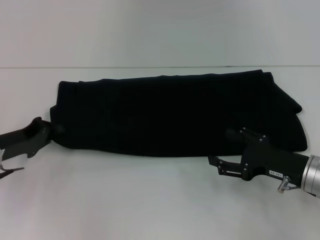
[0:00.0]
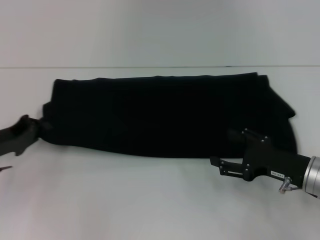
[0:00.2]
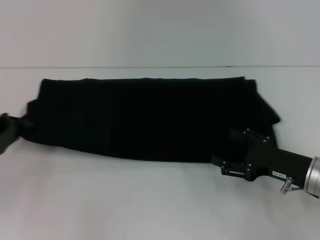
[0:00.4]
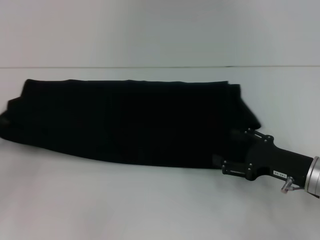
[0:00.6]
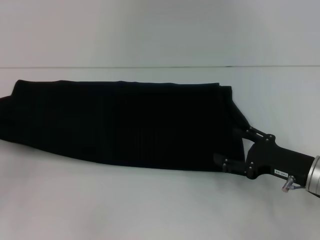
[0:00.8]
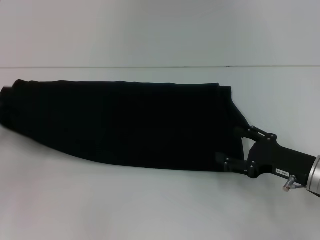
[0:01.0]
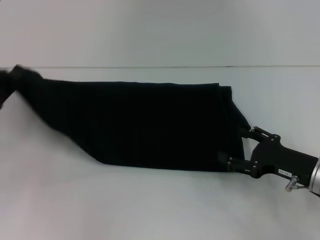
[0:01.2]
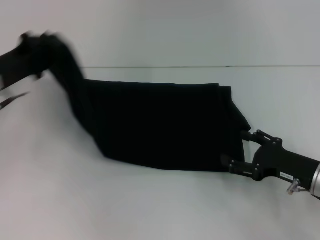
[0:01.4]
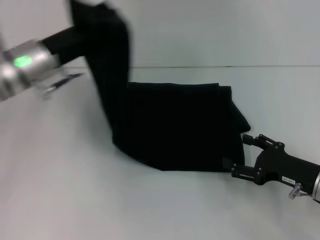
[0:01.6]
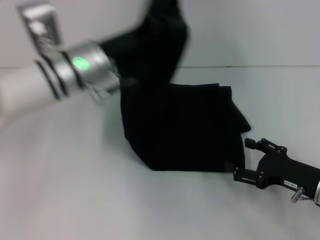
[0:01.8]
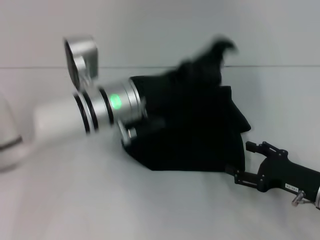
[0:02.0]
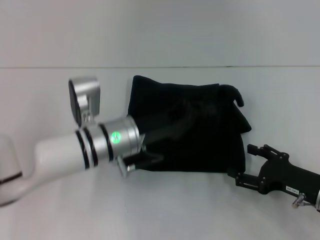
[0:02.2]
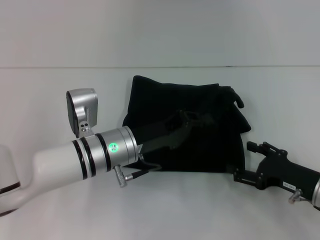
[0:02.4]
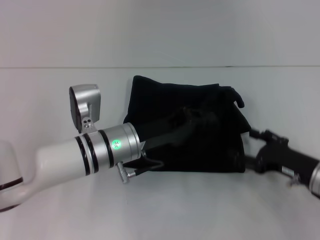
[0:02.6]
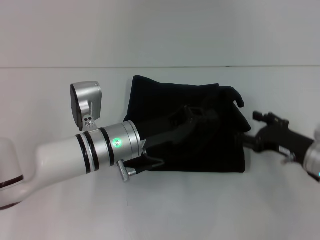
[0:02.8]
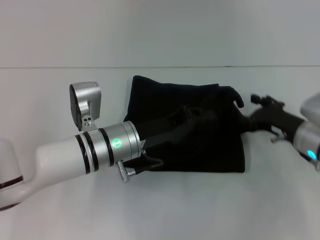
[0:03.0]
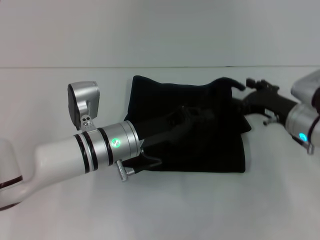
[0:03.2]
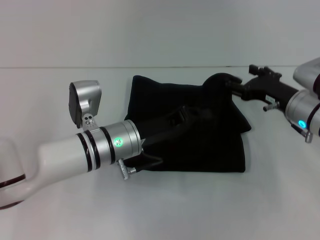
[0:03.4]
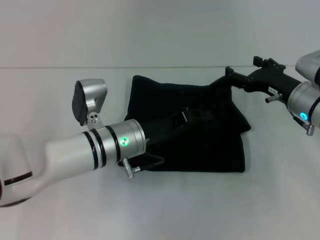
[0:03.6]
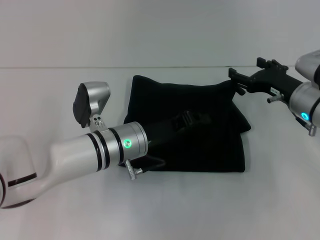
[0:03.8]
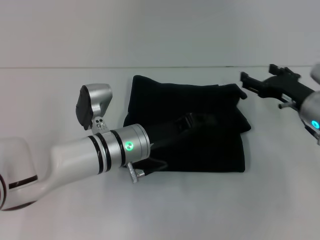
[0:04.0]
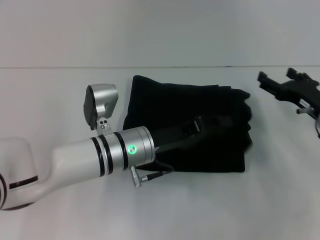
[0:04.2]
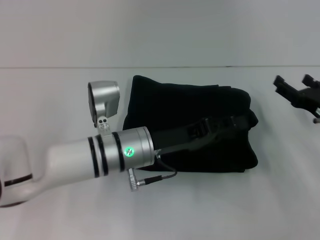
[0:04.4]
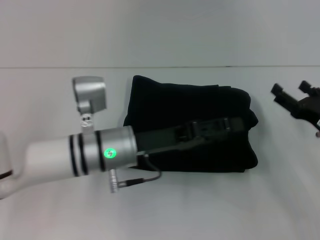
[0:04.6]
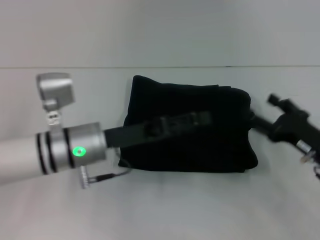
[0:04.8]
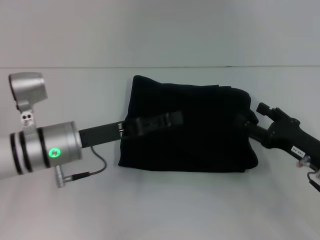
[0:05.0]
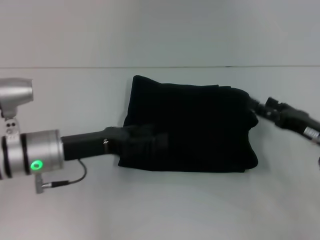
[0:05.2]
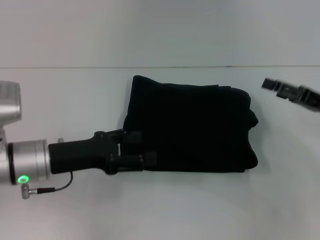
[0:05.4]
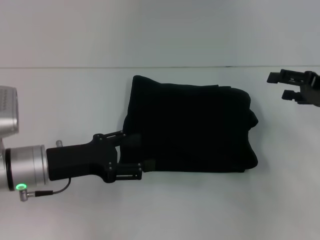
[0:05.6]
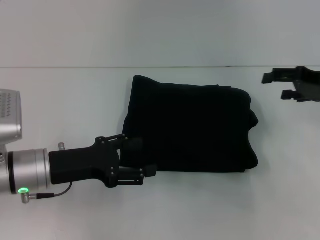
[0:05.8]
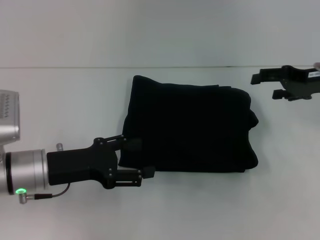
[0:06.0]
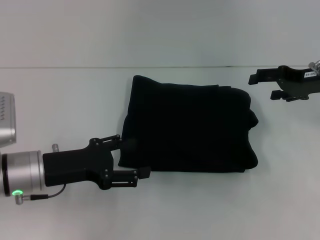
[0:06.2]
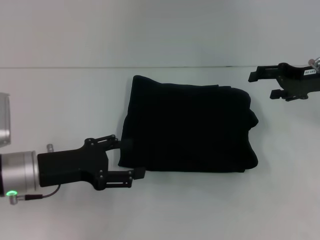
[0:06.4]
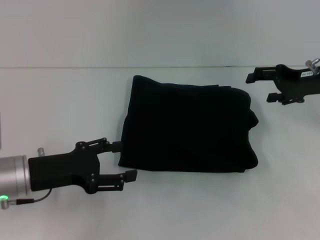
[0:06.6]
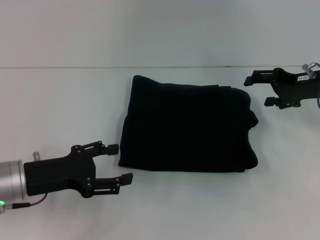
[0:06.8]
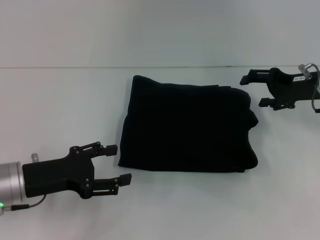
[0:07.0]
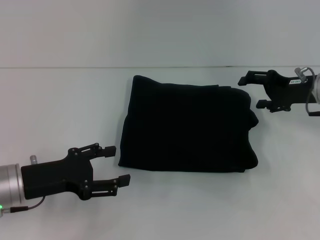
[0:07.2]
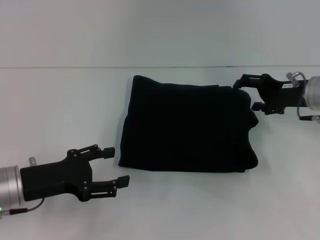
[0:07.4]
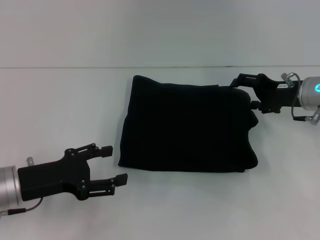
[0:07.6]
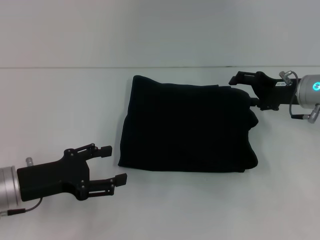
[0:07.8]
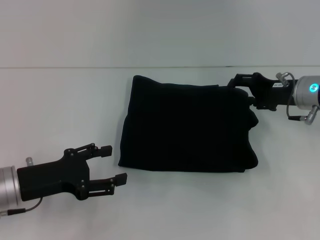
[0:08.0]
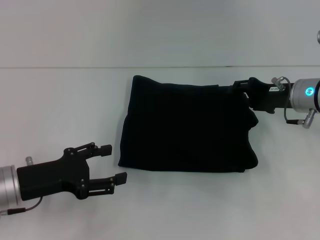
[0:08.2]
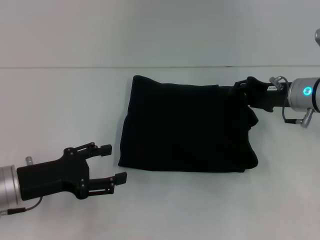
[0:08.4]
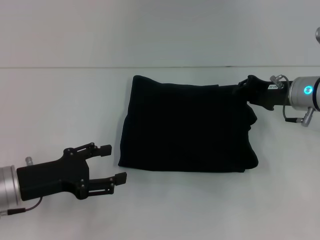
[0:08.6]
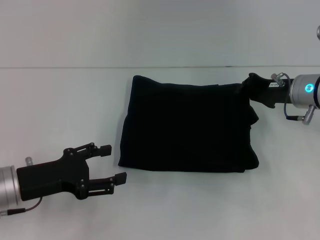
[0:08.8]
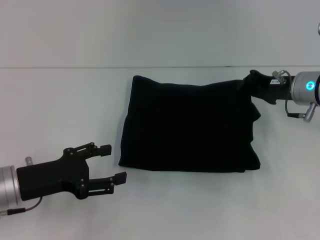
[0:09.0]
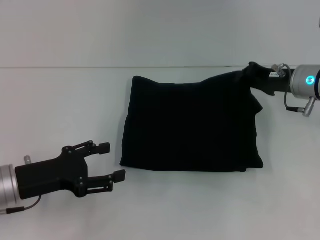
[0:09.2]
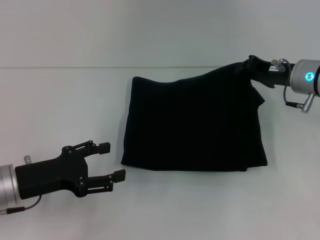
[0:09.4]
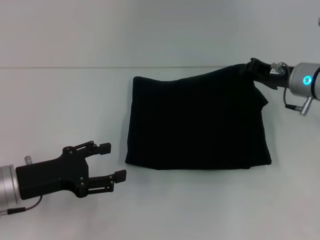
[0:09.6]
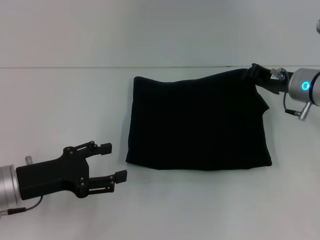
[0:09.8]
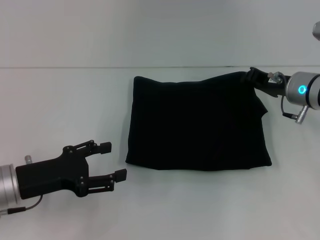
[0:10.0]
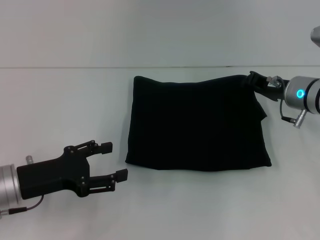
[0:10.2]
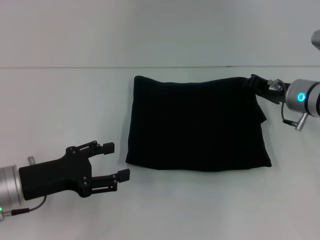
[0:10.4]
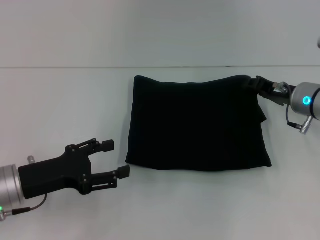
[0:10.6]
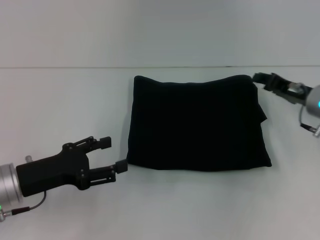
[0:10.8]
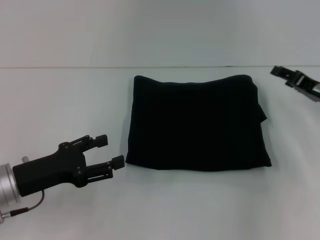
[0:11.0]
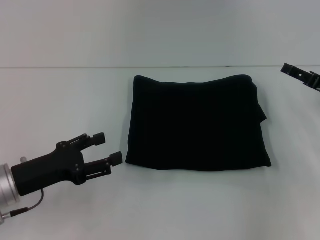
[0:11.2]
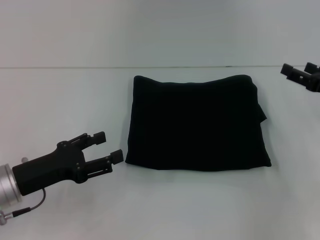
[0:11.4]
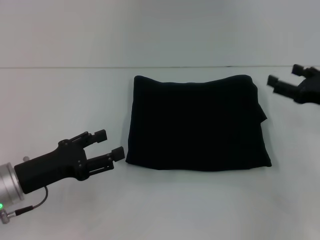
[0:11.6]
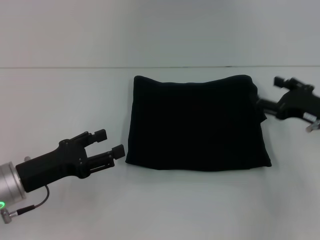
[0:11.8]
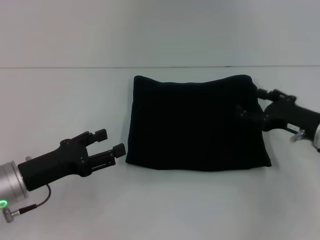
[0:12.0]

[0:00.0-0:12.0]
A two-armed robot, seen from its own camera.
Step, 0:00.0 to 0:04.4: Fold the clothes with your left hand.
0:00.0 to 0:01.6: The left gripper moves upward, to the right and forward, approximately 15 cm.
0:01.6 to 0:03.0: The left gripper travels to the right, downward and backward by roughly 15 cm; the right gripper heads forward, covering roughly 5 cm.
0:03.0 to 0:04.4: The left gripper opens up; the right gripper moves to the right, some 5 cm.
0:04.4 to 0:06.0: The right gripper moves upward and forward, roughly 15 cm. The left gripper heads to the left, covering some 15 cm, and opens up.
0:06.0 to 0:07.6: The right gripper moves roughly 5 cm.
0:07.6 to 0:09.0: The right gripper closes.
0:09.0 to 0:10.4: There are only small adjustments of the grippers.
0:10.4 to 0:12.0: The right gripper goes approximately 5 cm backward, and opens.

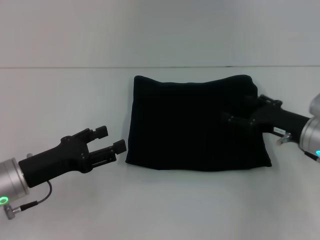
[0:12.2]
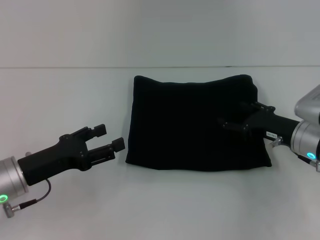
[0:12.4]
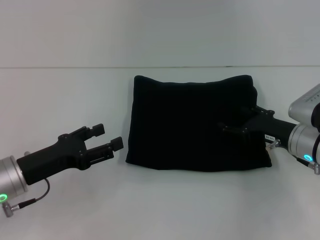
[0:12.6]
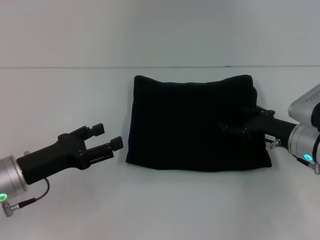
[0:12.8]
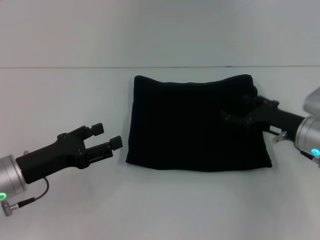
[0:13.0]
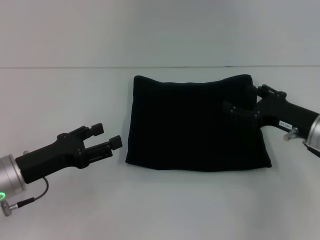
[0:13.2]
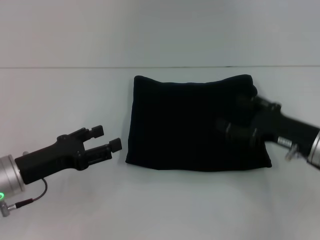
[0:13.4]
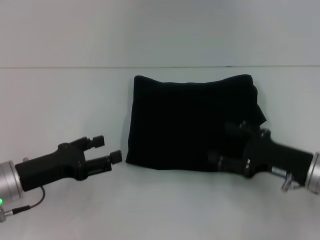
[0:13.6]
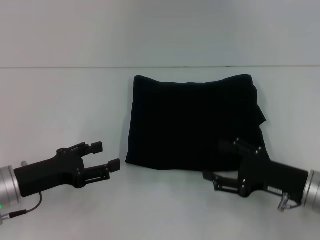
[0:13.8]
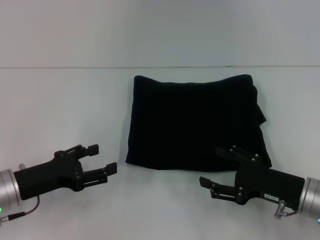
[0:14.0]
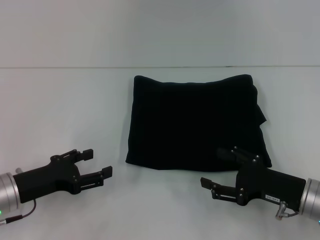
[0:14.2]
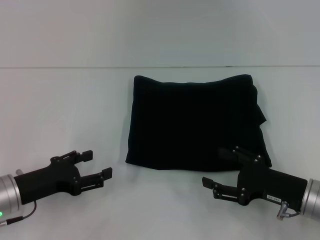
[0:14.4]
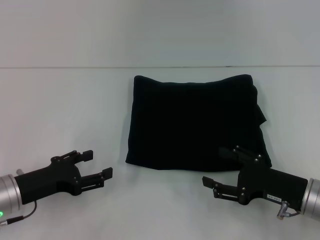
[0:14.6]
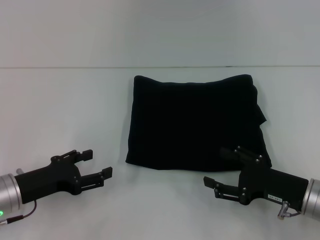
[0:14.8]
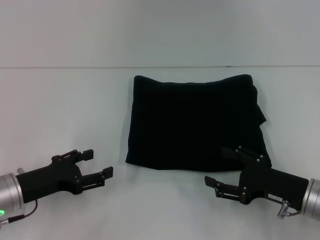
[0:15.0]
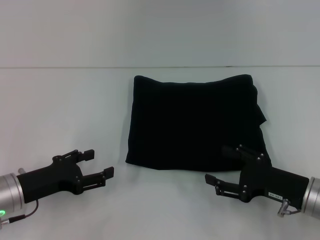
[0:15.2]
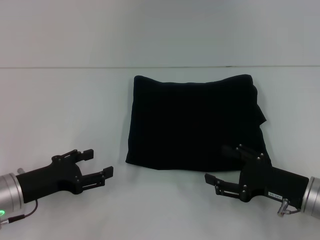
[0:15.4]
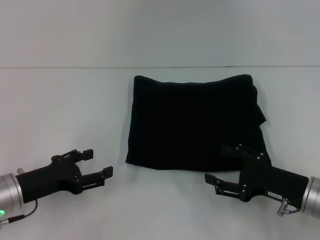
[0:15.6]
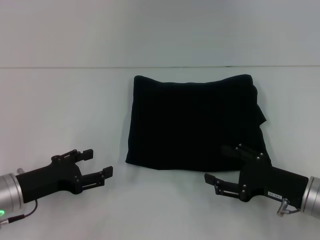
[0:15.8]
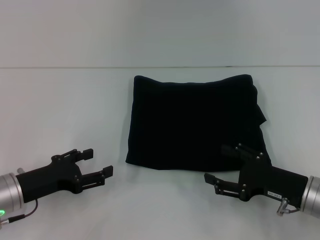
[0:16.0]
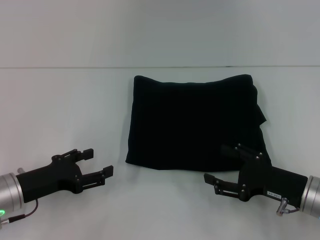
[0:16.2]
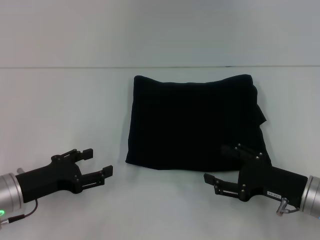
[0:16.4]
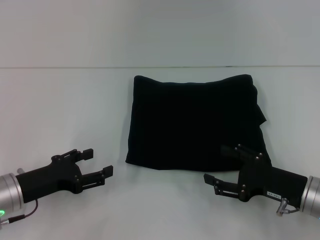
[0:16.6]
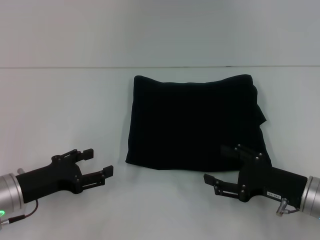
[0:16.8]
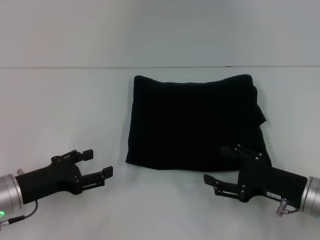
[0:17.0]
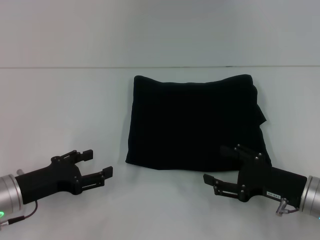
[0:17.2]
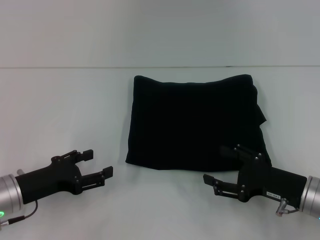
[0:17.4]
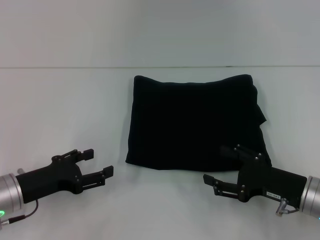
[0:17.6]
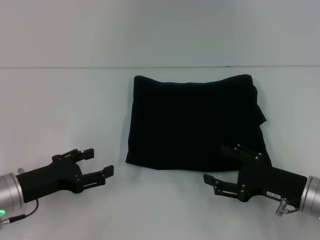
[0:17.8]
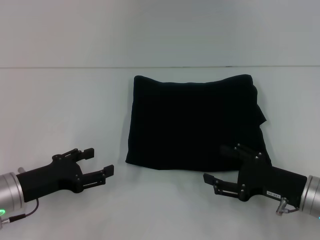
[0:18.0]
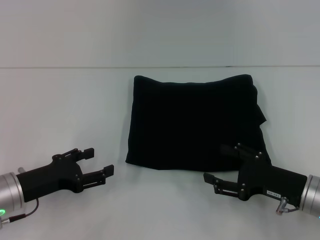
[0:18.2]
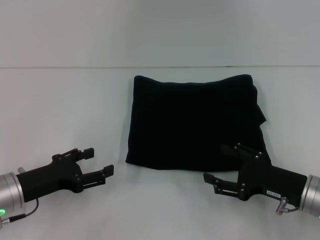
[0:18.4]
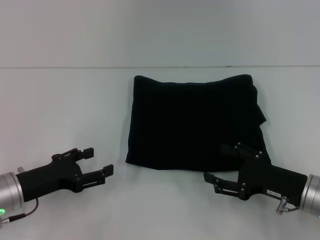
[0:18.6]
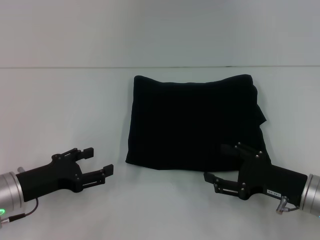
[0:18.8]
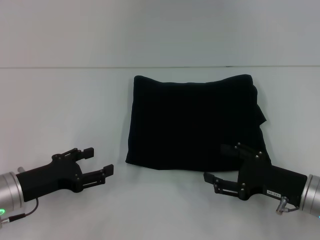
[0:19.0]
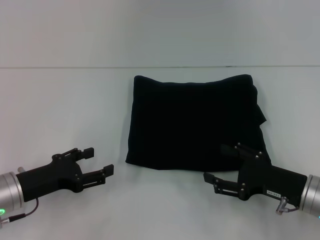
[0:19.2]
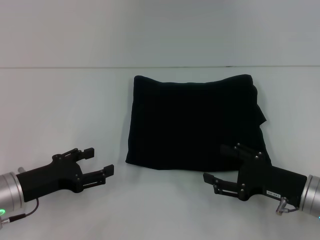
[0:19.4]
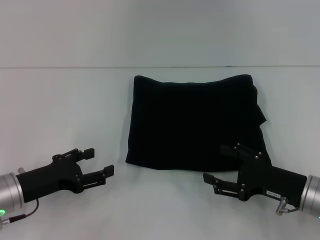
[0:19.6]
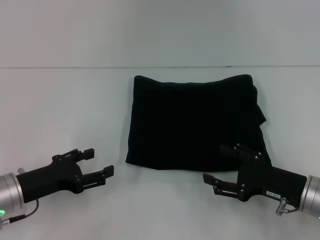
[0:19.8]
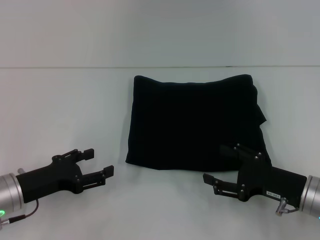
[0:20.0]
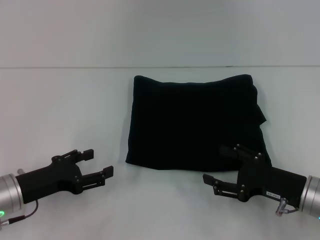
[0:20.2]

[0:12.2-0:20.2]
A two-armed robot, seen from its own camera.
0:12.2 to 0:13.8: The right gripper shifts about 10 cm backward.
0:13.8 to 0:15.4: There are only small adjustments of the grippers.
0:15.4 to 0:20.2: Both grippers stay put.

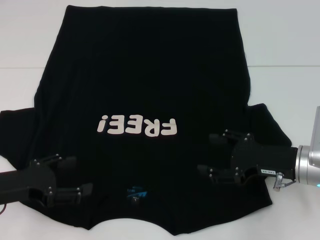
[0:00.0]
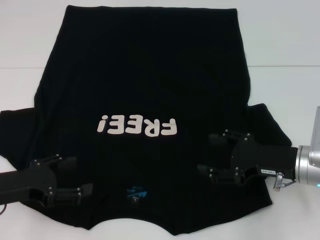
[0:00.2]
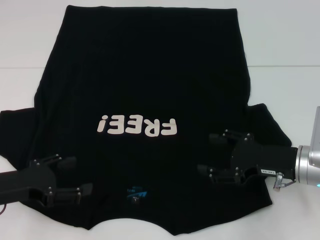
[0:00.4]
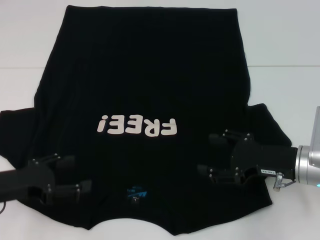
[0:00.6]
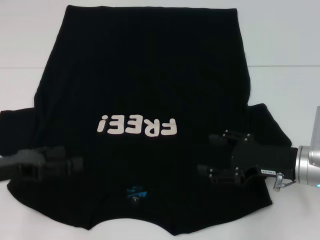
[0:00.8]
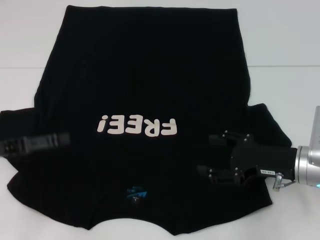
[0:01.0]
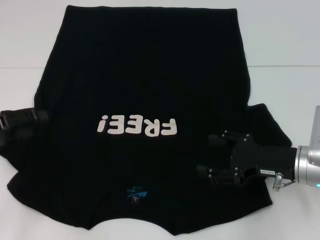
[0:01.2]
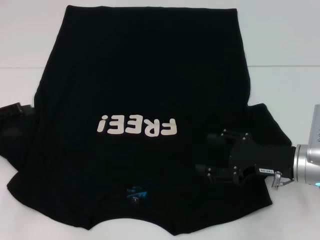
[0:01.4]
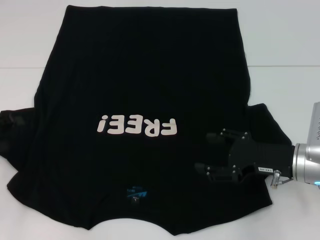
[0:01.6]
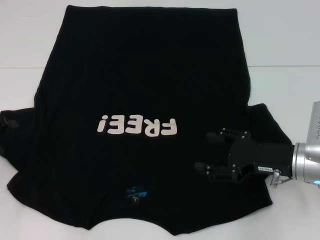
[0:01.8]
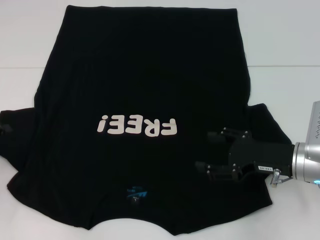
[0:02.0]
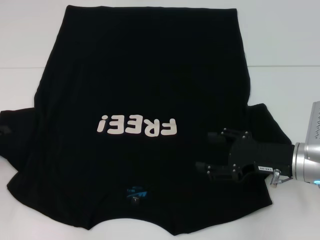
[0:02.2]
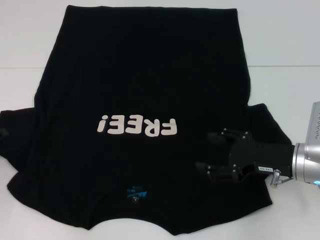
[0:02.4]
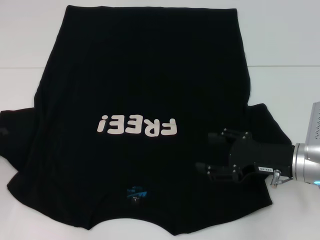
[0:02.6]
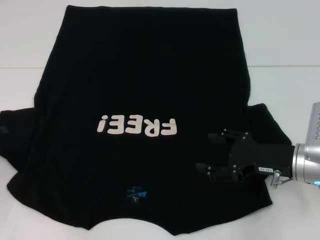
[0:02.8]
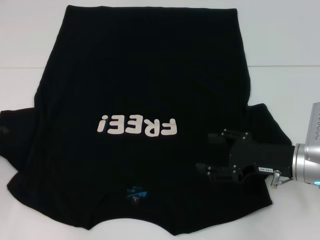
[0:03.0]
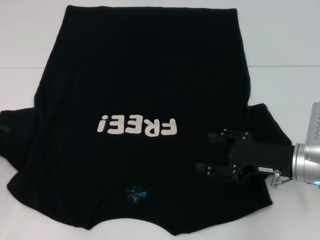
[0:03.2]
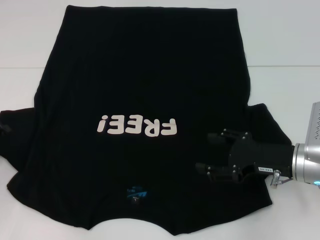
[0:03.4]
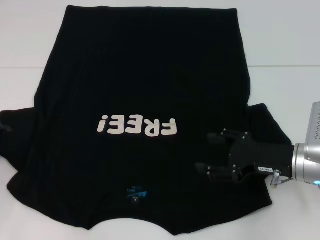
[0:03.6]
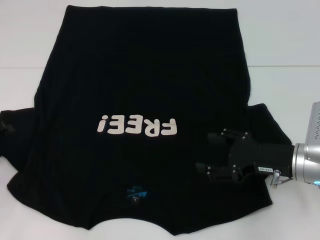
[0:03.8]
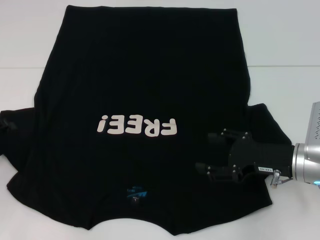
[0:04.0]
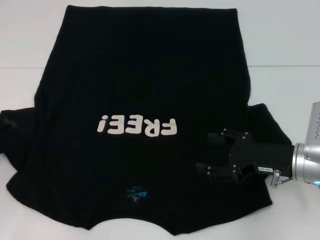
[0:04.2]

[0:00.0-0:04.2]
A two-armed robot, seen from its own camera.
0:00.0 to 0:01.4: The left gripper heads to the left, covering approximately 5 cm.
0:01.4 to 0:02.8: The grippers move only a little.
